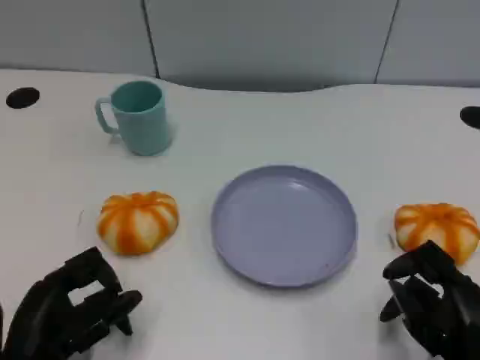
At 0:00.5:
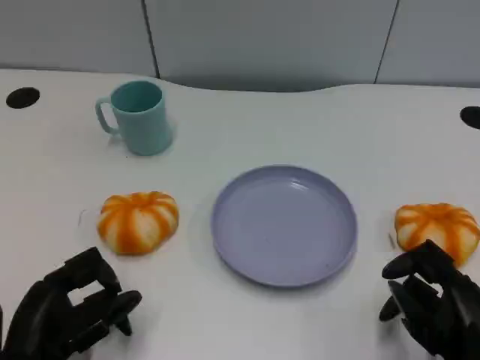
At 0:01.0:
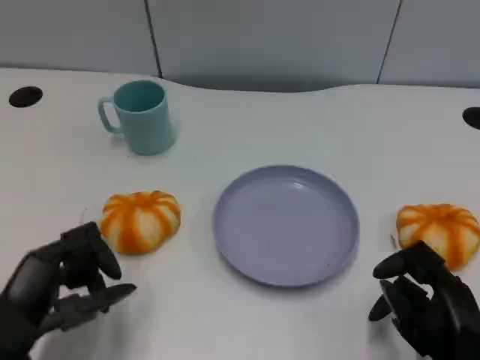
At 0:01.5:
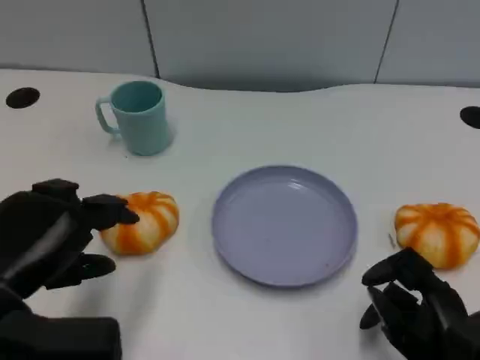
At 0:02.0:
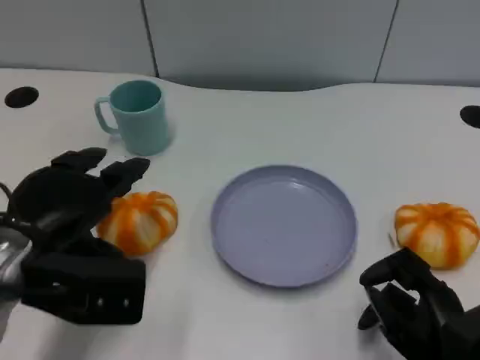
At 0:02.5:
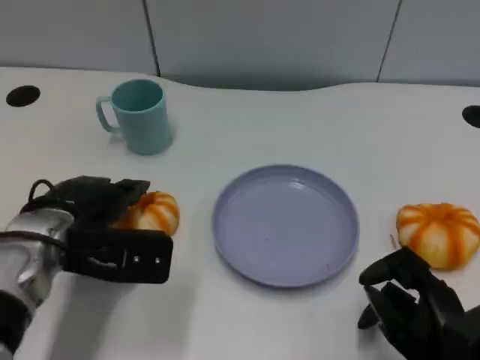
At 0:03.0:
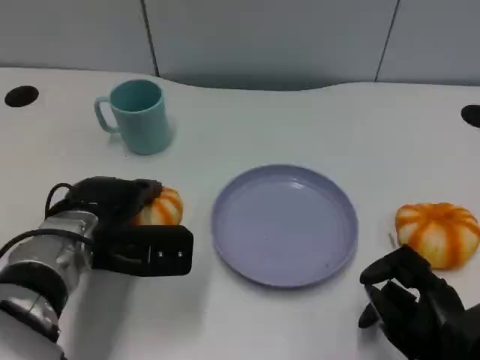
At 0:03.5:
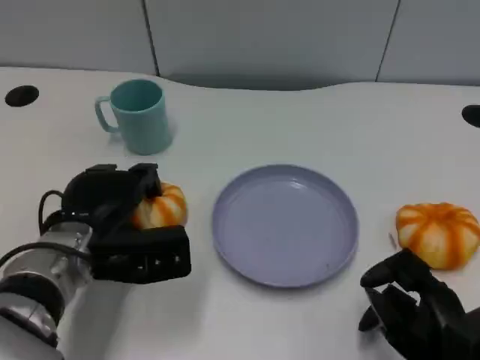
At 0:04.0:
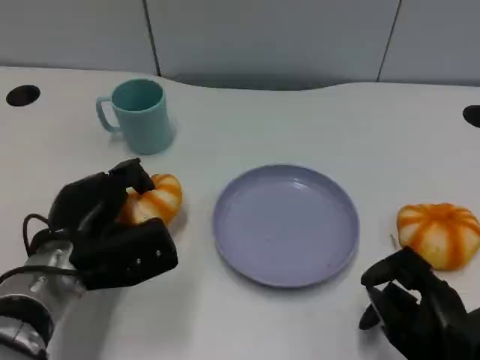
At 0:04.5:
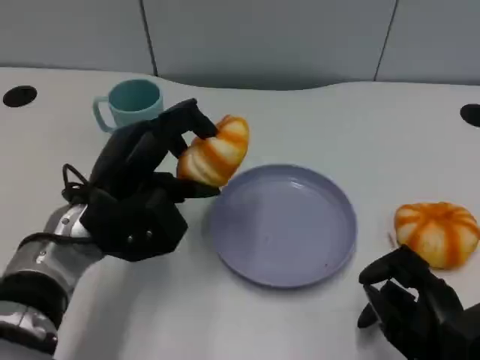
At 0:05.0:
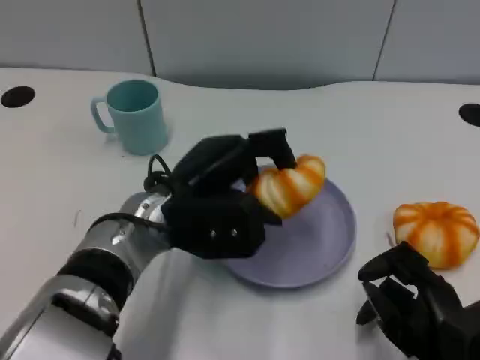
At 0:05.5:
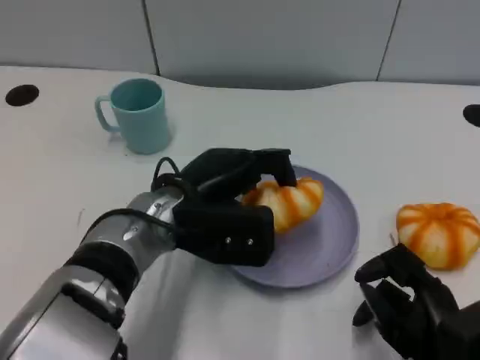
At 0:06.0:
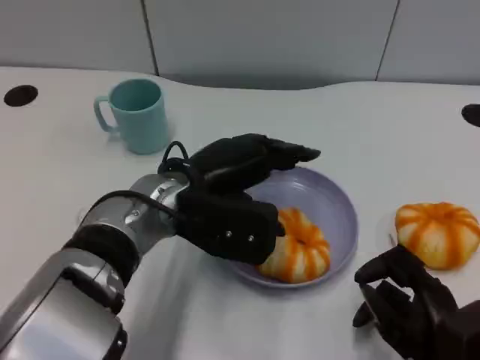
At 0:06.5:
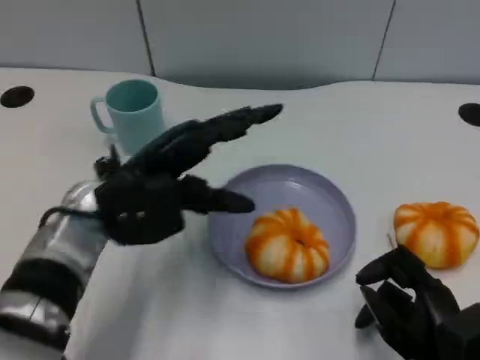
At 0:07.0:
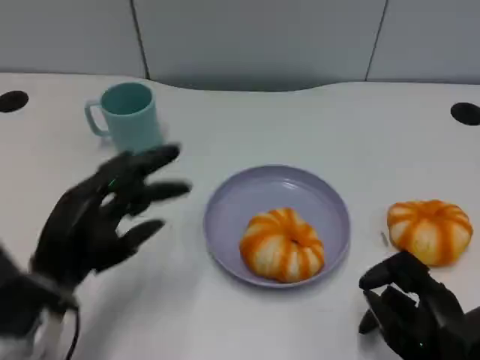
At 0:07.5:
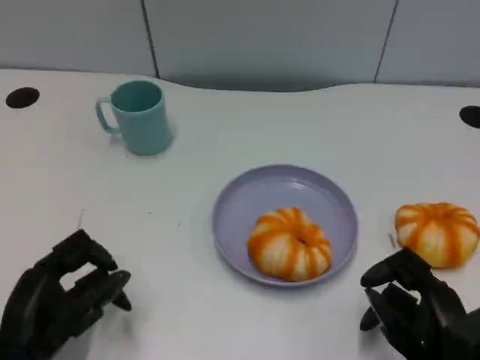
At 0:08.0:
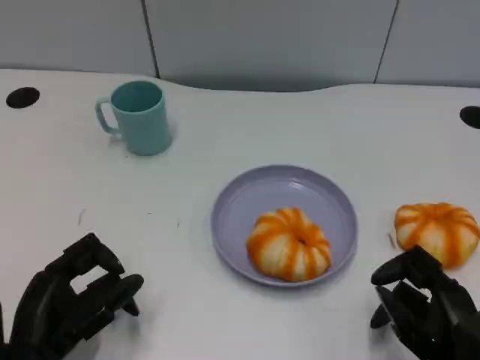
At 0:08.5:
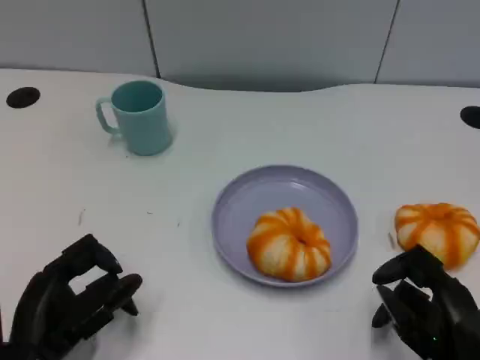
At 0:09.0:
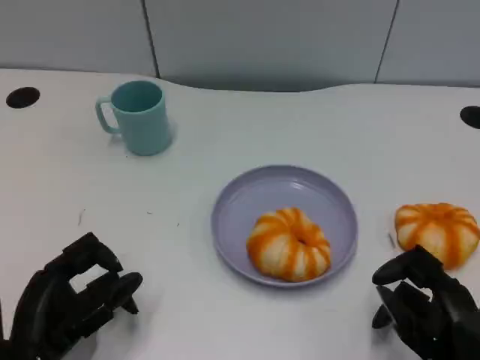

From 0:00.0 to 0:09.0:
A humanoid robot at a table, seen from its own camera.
Task of the whole recording: Grasp the bread from the table and place it into the plate.
From 0:00.0 to 0:02.0: The left hand travels upward and forward by roughly 15 cm.
From 0:02.0 to 0:04.5: The left hand goes some 5 cm to the right.
From 0:04.5 to 0:07.0: The left hand goes approximately 10 cm backward and to the left.
From 0:07.0 to 0:09.0: The left hand shifts by about 5 cm.

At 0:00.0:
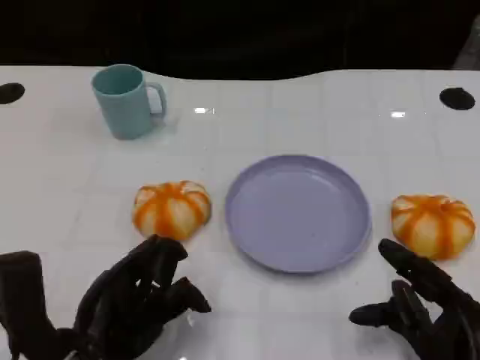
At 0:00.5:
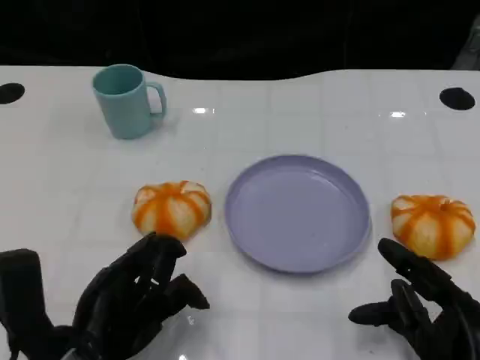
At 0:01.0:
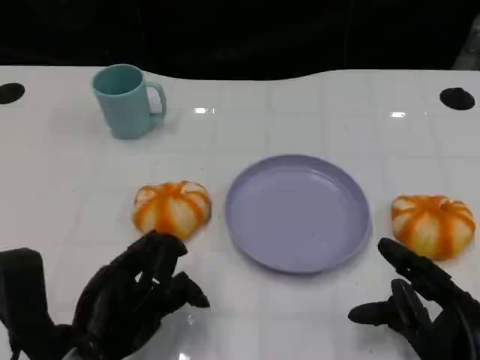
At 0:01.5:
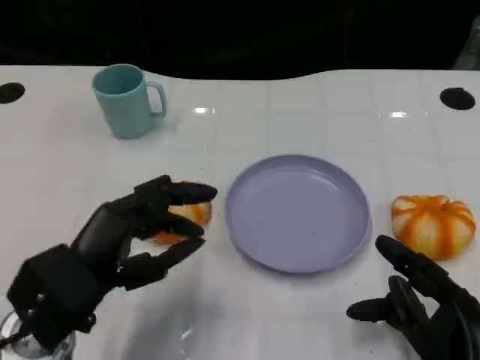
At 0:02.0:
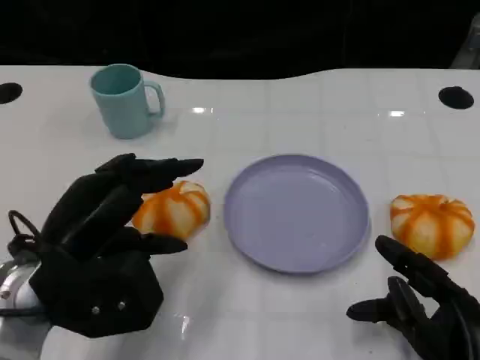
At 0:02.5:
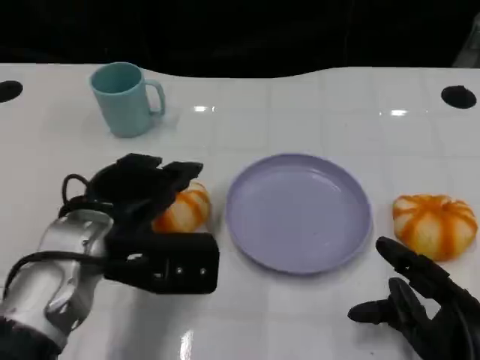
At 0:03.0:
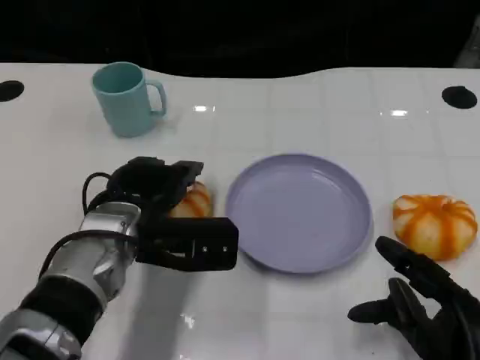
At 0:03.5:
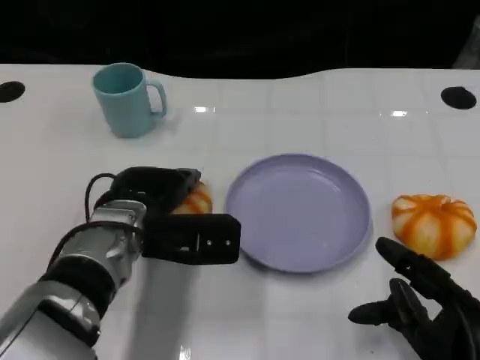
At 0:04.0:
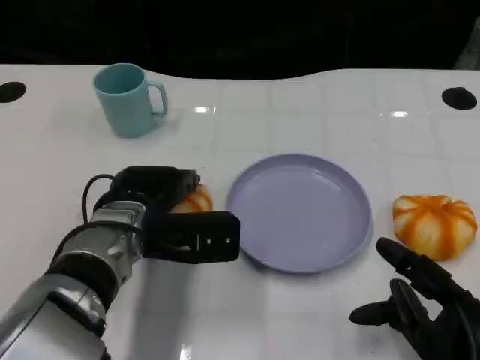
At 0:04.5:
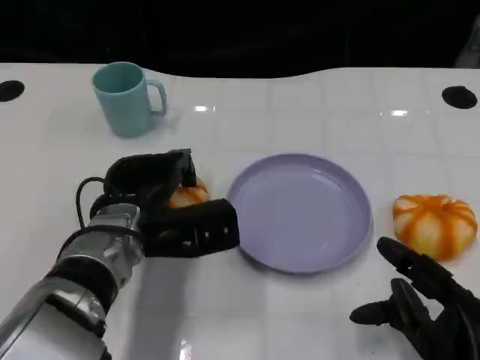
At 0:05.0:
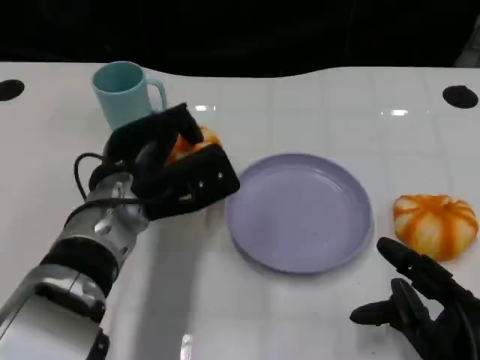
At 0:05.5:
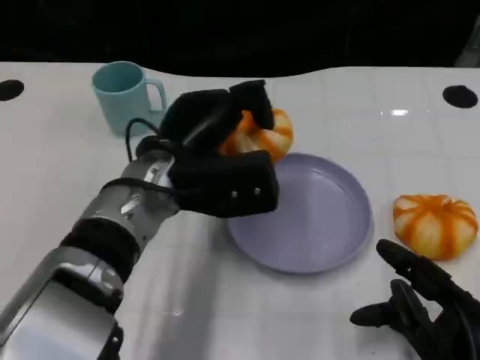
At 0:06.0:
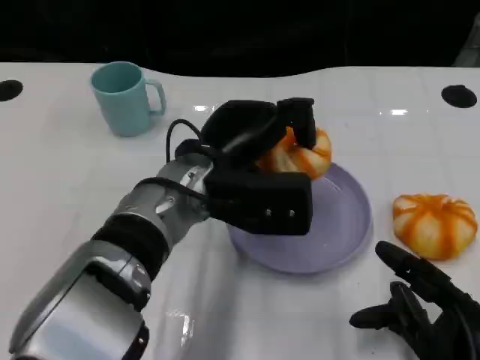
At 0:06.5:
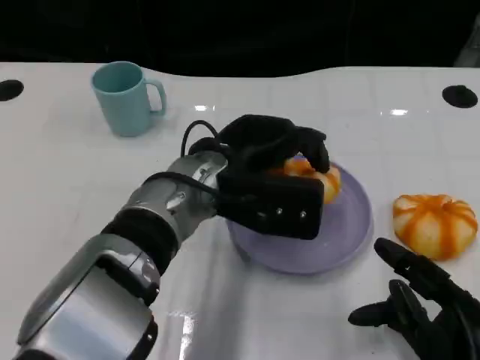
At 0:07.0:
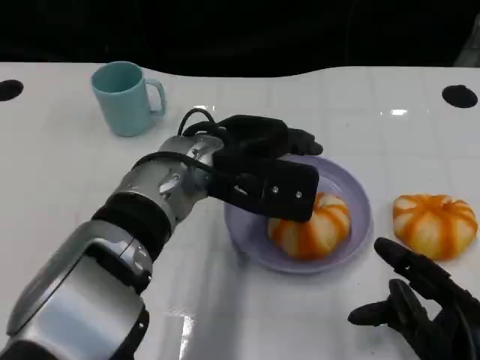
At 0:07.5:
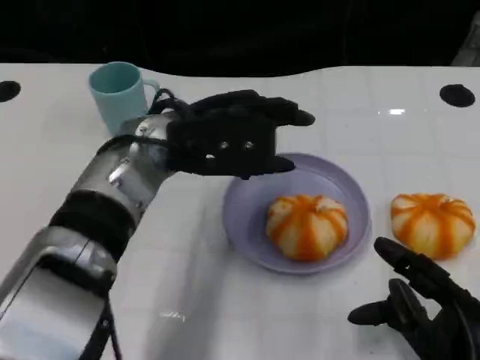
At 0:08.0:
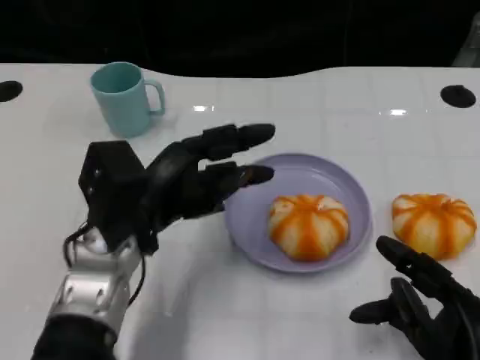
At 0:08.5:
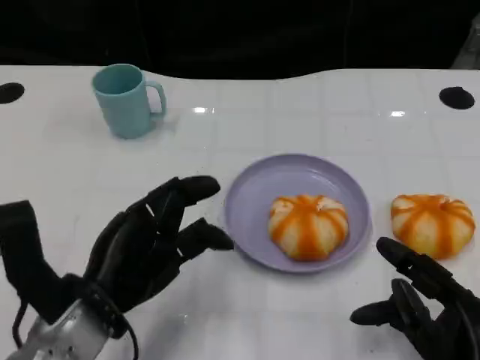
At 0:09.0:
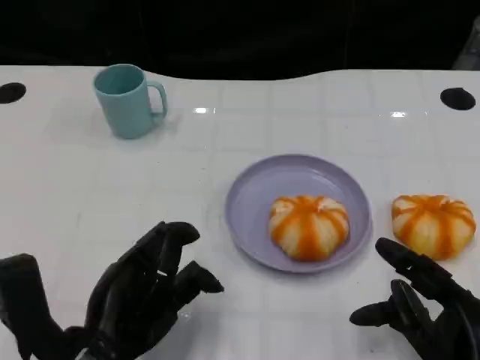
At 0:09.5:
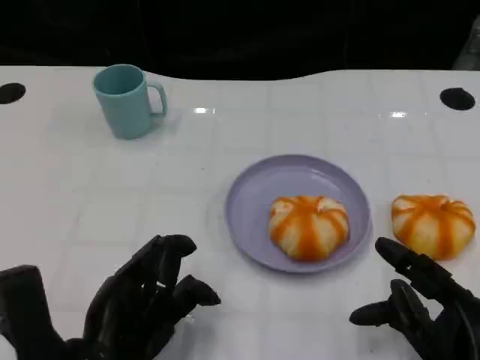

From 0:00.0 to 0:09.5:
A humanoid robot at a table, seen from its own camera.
Task of the whole recording: Grasp the bread from the table and place it into the plate.
From 0:00.0 to 0:02.0: The left hand shifts approximately 10 cm upward and forward.
From 0:02.0 to 0:04.0: The left hand travels forward, to the right and downward by some 10 cm.
From 0:04.0 to 0:05.5: The left hand is displaced upward by some 5 cm.
From 0:07.5 to 0:09.5: The left hand goes approximately 20 cm backward, downward and to the left.

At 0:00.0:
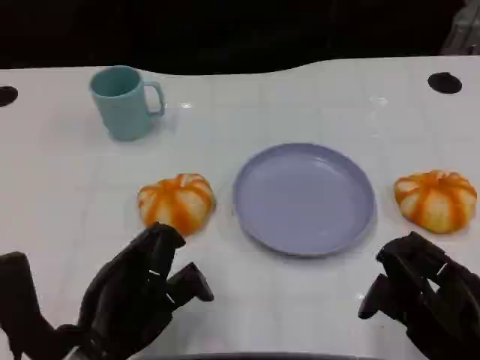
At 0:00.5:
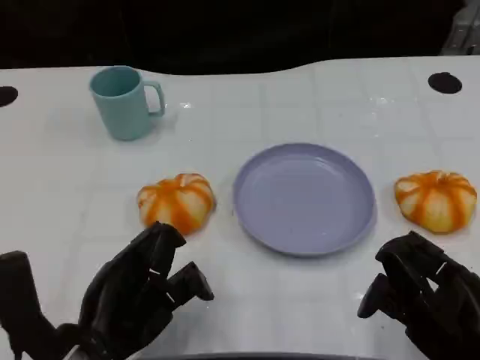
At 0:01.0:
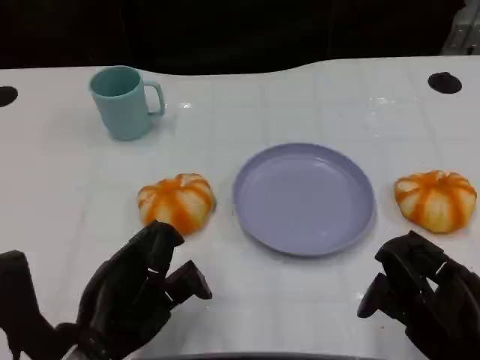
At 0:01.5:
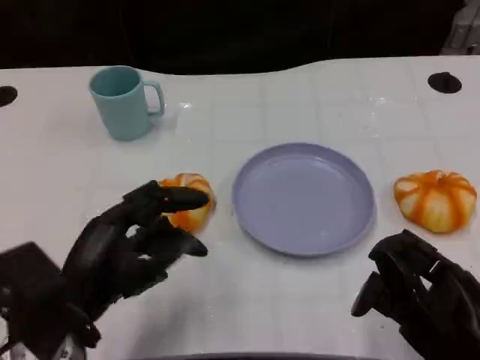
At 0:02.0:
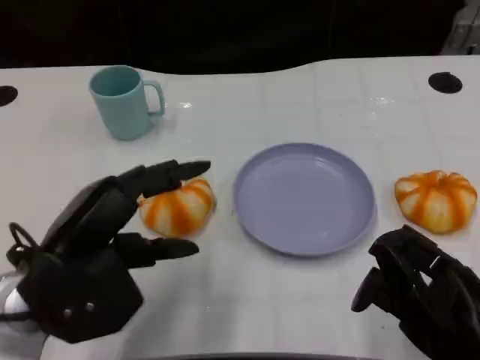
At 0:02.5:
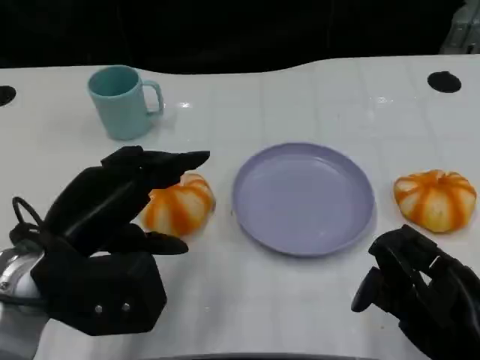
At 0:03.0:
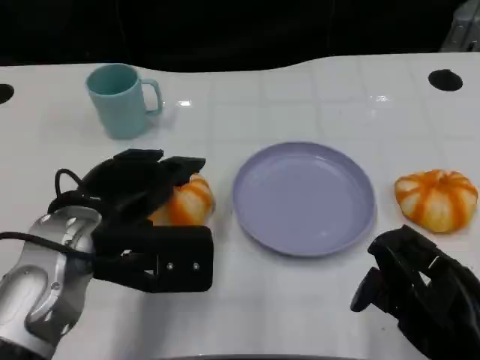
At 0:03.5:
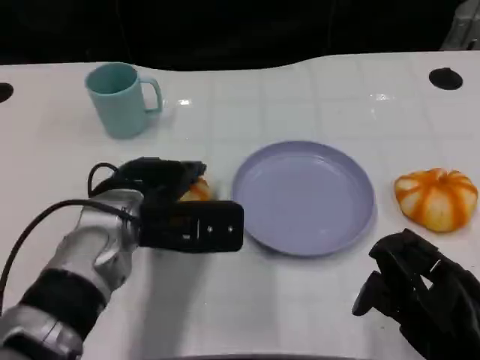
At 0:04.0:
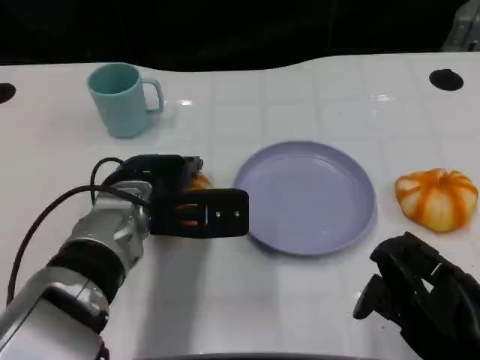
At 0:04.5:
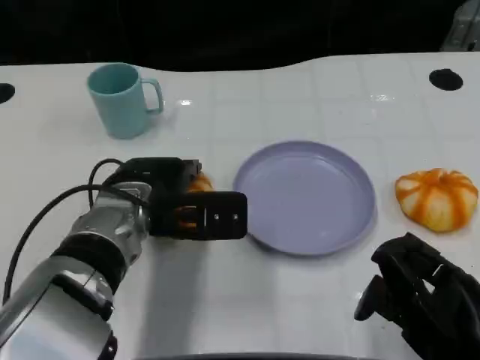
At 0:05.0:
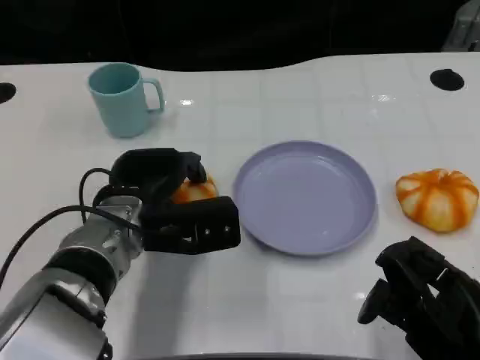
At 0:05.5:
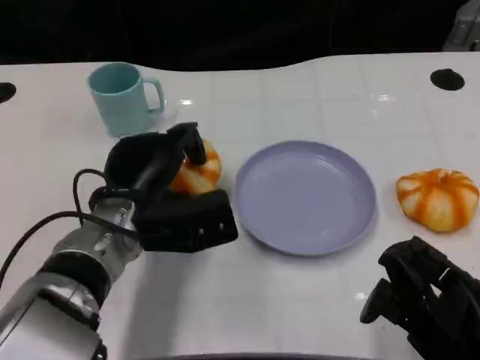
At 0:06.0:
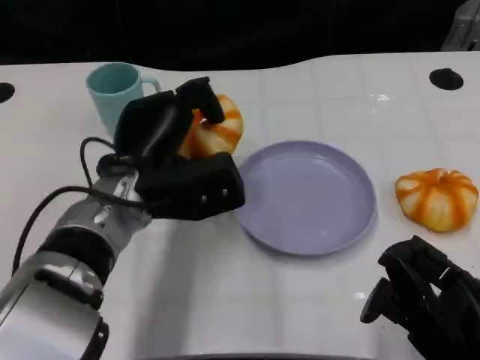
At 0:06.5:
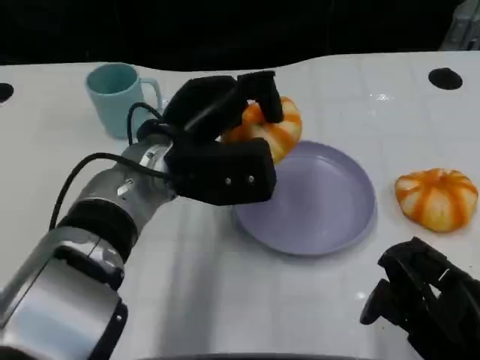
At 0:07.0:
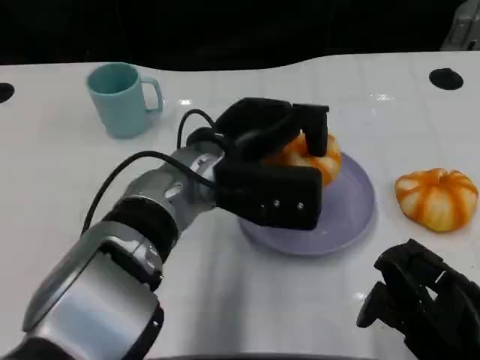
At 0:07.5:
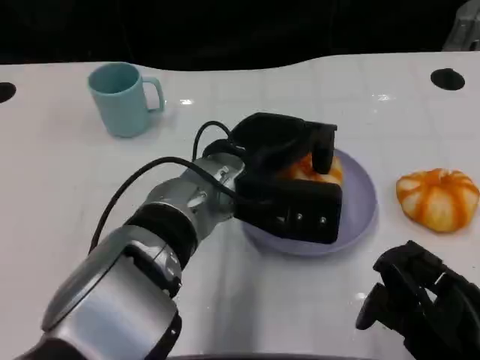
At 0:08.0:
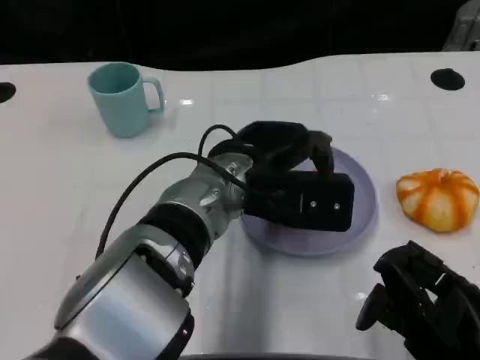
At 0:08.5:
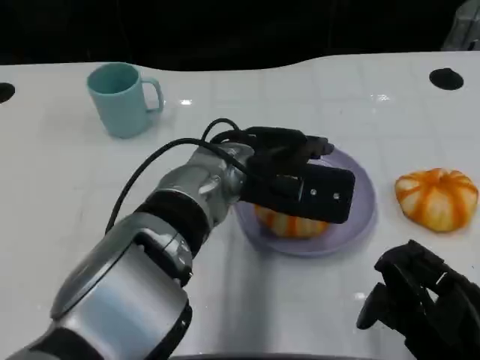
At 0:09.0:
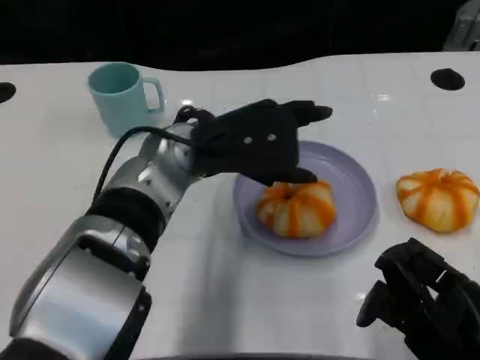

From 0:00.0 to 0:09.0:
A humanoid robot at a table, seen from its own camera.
Task of the whole recording: Grasp the bread from the table and place it into the plate.
From 0:00.0 to 0:02.0: The left hand is displaced upward by some 5 cm.
From 0:02.0 to 0:04.5: The left hand moves forward and to the right, approximately 15 cm.
From 0:04.5 to 0:07.0: The left hand heads to the right, covering about 10 cm.
